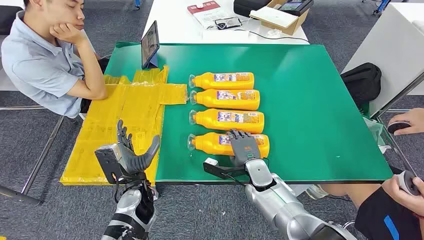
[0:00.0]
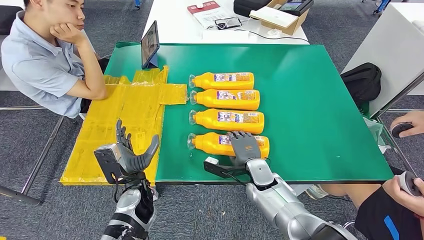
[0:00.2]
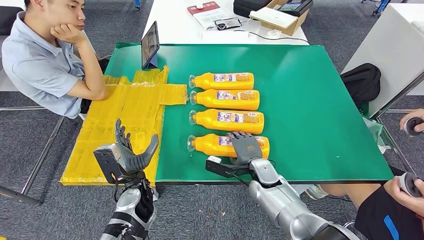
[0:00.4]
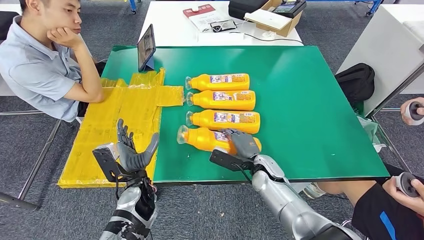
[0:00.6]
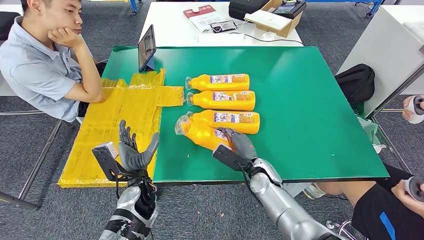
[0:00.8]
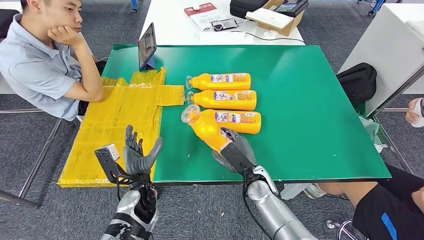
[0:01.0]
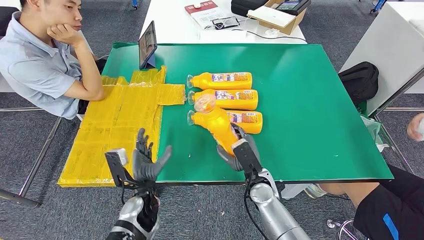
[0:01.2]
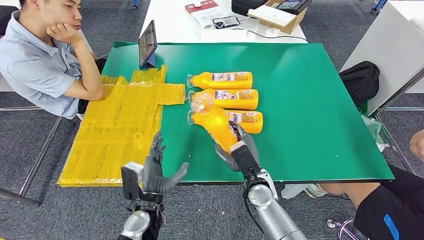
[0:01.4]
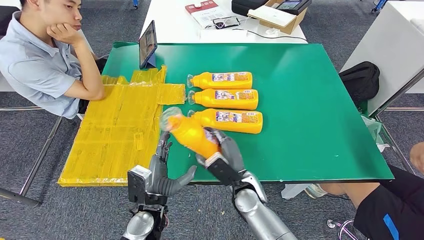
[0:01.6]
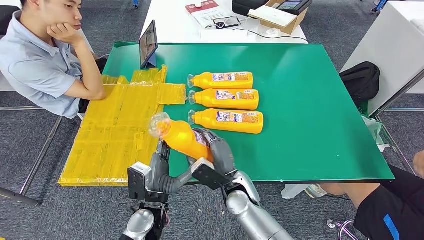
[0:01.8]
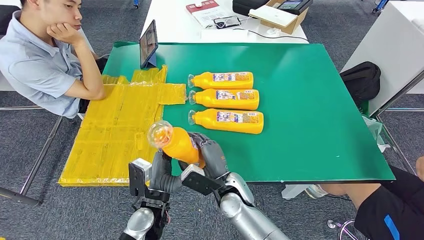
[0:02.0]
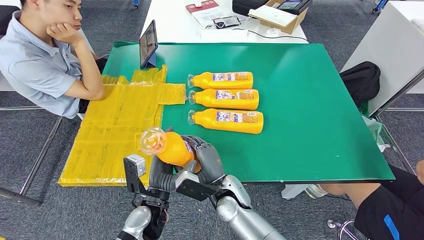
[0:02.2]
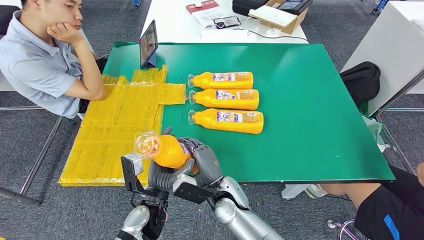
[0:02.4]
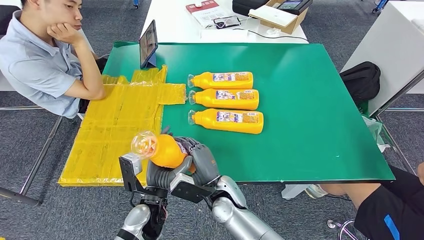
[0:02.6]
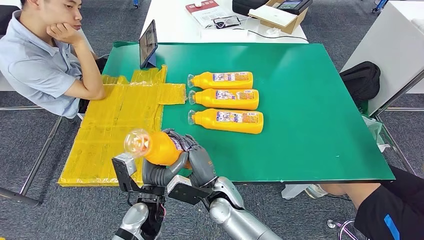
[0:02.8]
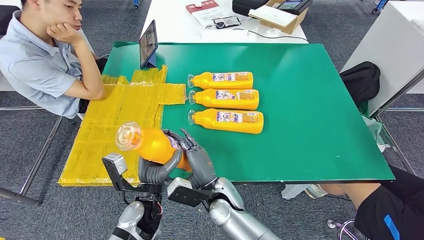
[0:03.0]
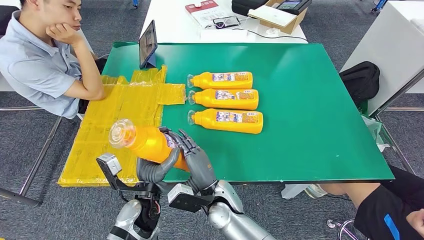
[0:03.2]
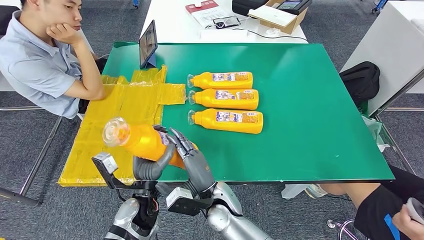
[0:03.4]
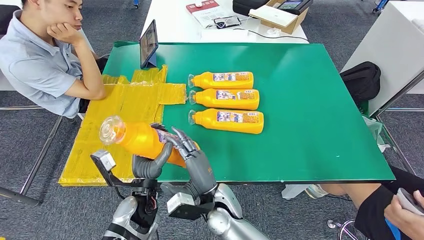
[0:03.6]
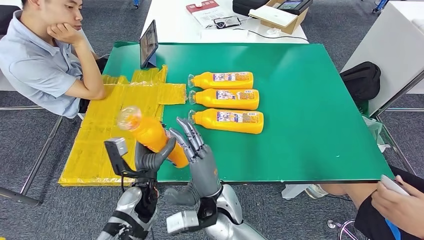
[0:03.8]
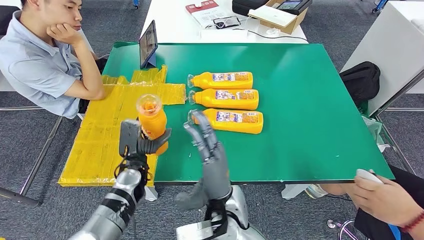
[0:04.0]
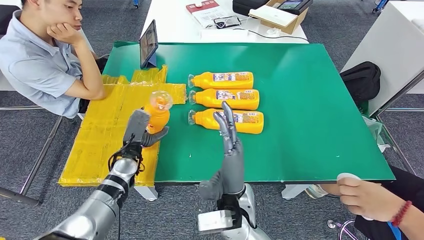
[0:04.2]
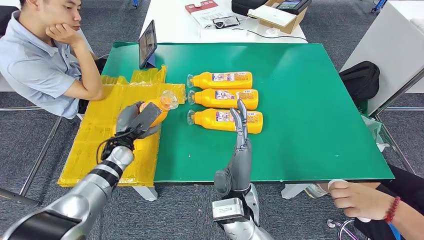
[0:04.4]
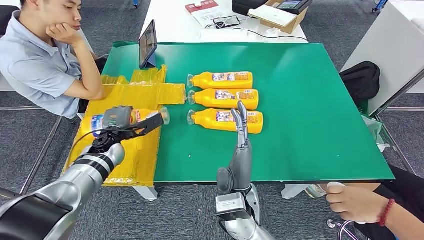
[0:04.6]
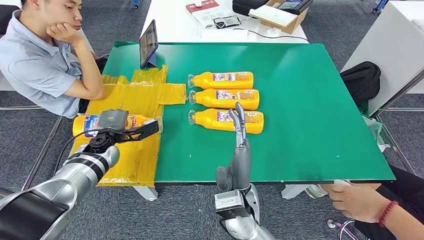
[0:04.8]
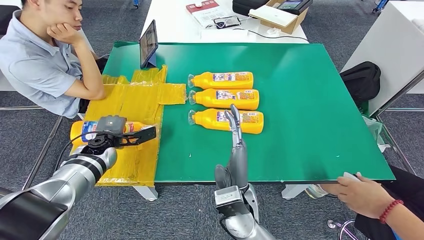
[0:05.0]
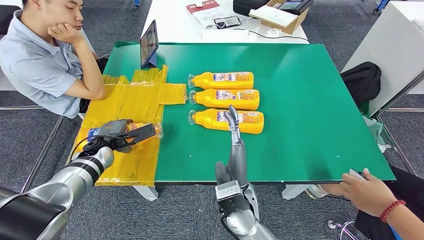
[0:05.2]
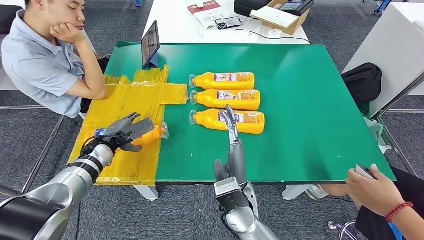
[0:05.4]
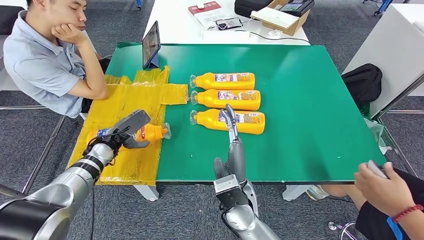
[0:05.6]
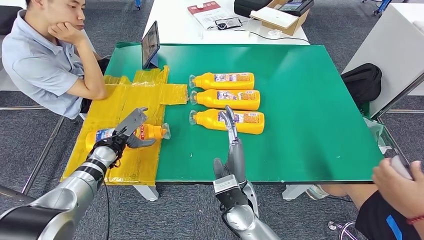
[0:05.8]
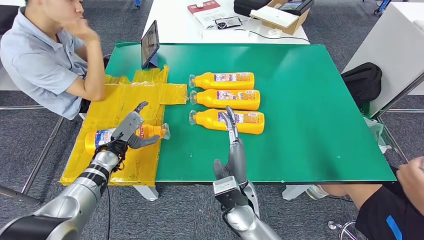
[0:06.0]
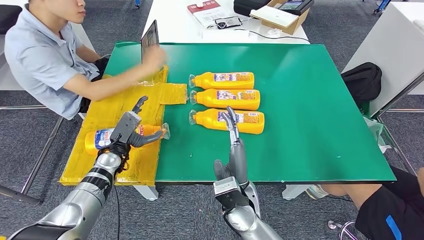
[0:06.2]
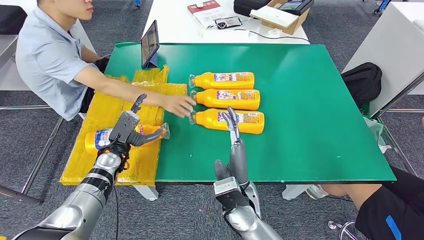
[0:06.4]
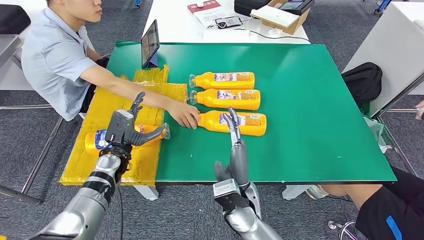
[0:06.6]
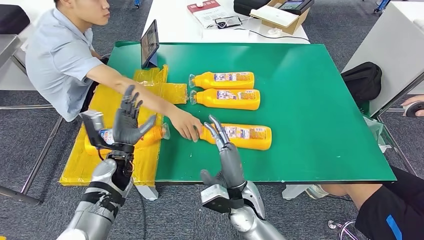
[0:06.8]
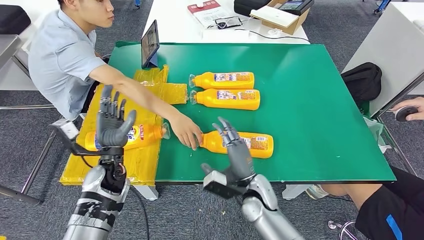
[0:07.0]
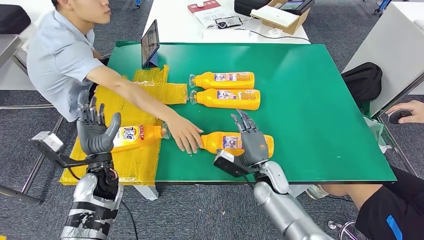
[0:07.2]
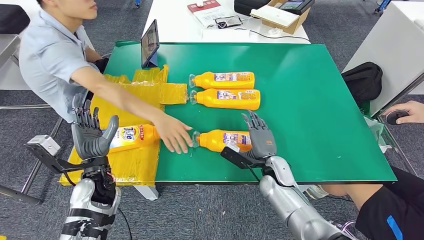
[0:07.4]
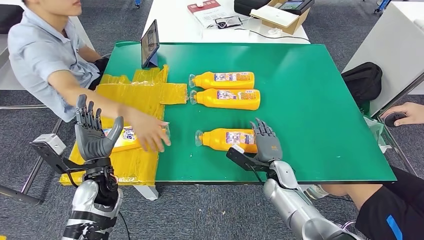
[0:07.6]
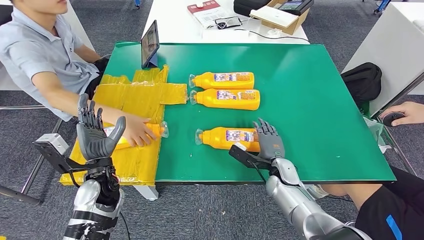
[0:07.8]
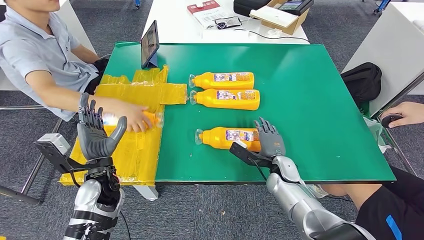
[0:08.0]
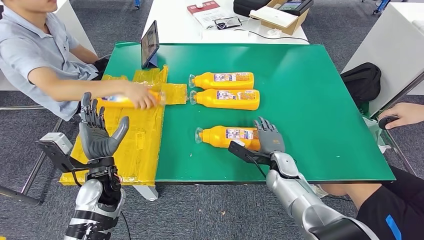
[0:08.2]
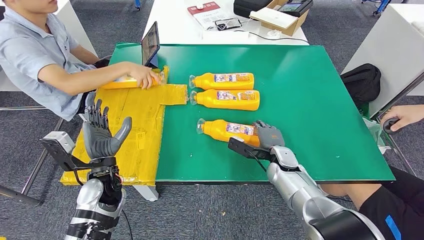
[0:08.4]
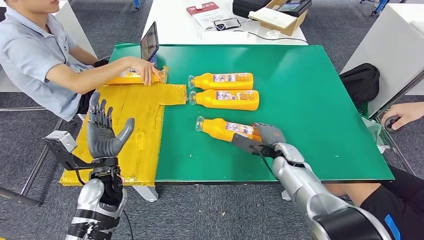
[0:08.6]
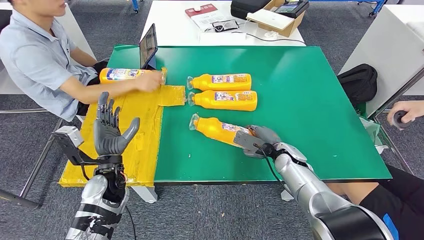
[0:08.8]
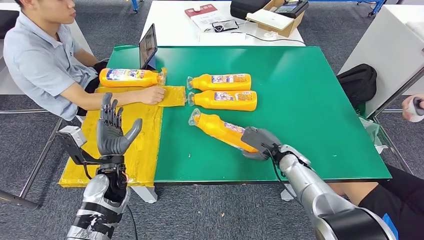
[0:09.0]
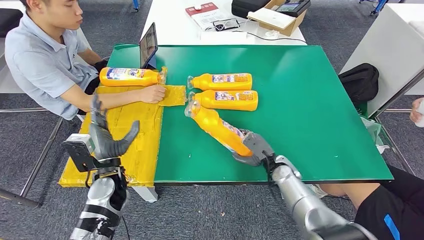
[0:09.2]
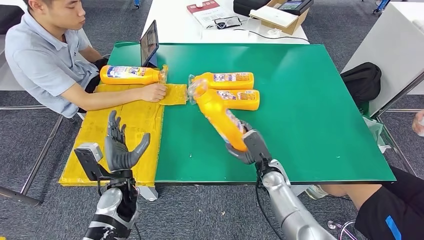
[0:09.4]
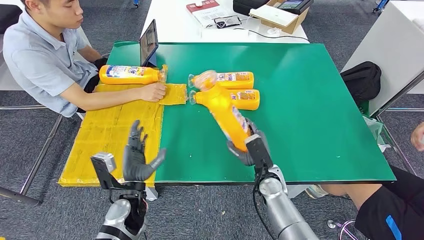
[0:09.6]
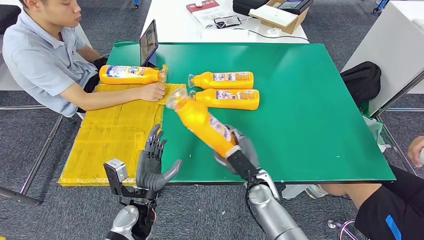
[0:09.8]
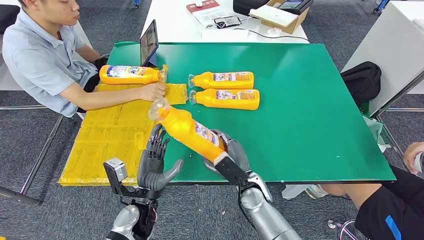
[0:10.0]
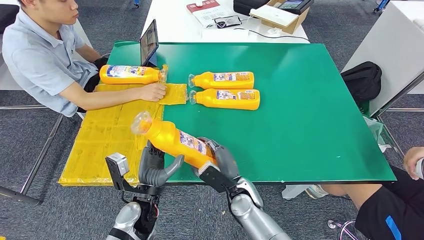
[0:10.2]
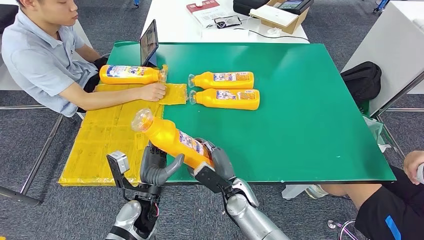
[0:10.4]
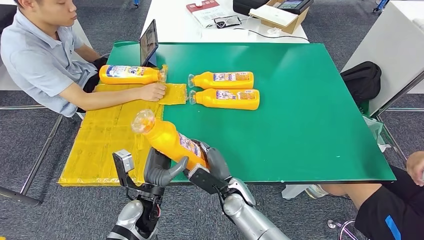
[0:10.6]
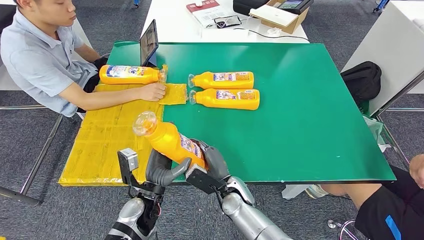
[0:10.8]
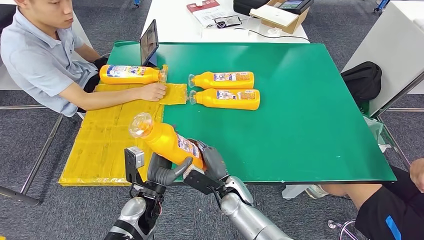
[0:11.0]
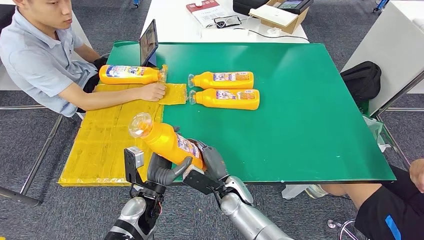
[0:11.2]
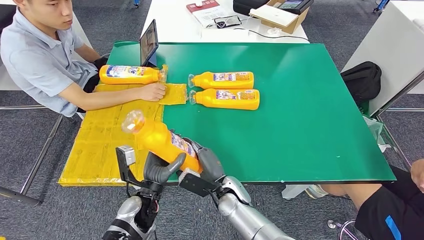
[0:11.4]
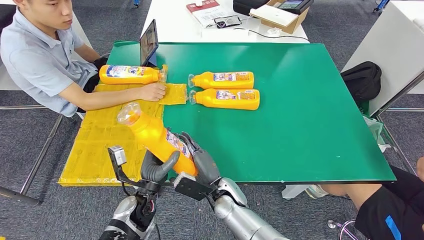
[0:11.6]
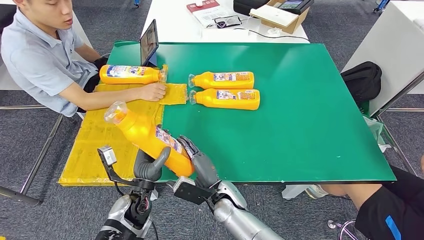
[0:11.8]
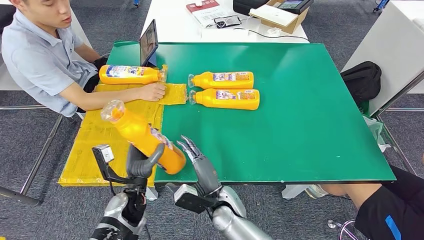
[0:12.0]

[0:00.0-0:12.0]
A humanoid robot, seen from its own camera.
Step, 0:00.0 to 0:02.4: Take the fast-moving consumer goods bottle from the table.
Step, 0:02.8 to 0:06.0: Flip the fast-moving consumer goods bottle to the front side.
Step, 0:08.4 to 0:10.8: Pick up the fast-moving consumer goods bottle from the table.
0:01.6 to 0:03.0: The right hand travels to the left by approximately 10 cm.
0:03.0 to 0:04.4: The left hand shifts about 20 cm forward and to the left; the right hand heads upward, covering some 10 cm.
0:10.4 to 0:12.0: The left hand changes place by roughly 5 cm.

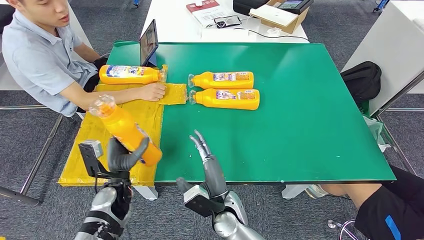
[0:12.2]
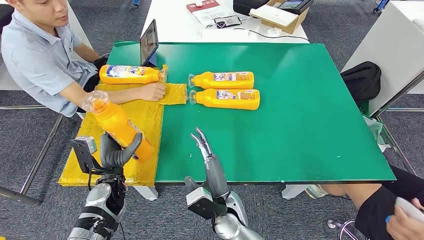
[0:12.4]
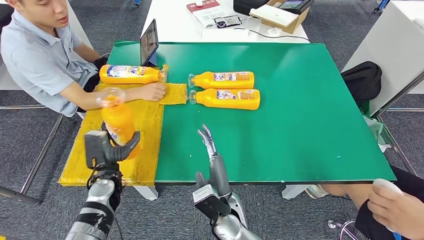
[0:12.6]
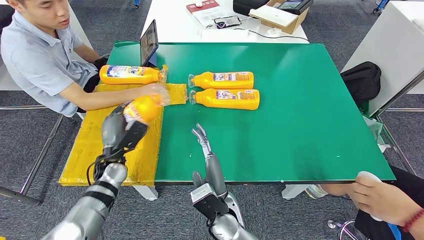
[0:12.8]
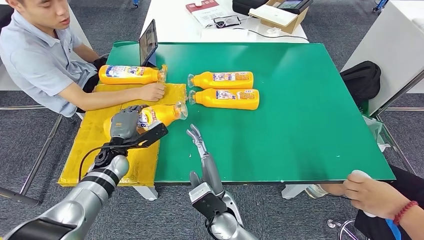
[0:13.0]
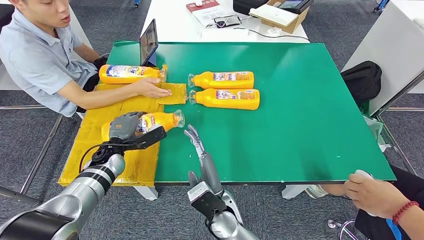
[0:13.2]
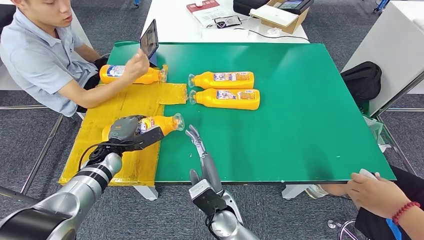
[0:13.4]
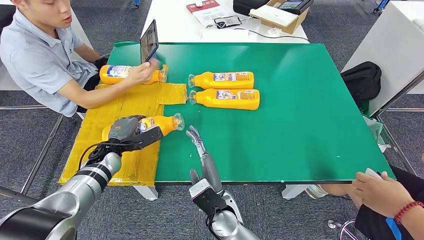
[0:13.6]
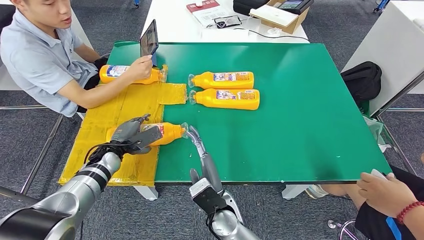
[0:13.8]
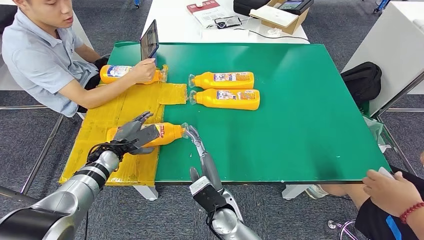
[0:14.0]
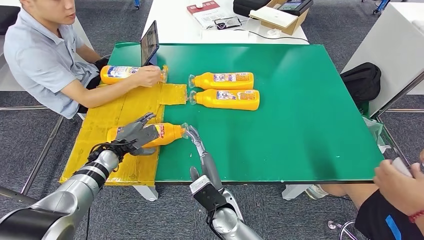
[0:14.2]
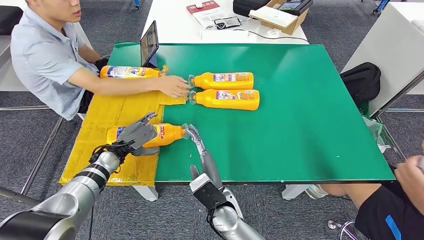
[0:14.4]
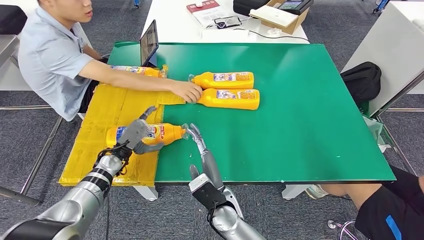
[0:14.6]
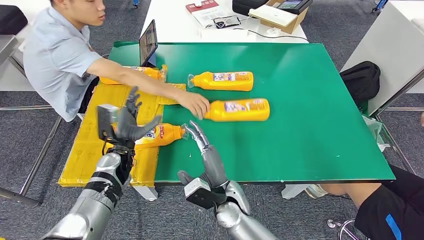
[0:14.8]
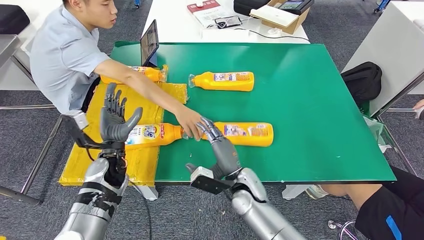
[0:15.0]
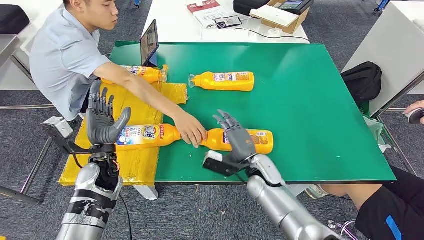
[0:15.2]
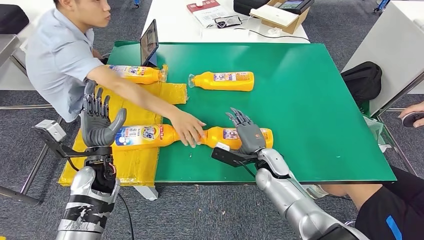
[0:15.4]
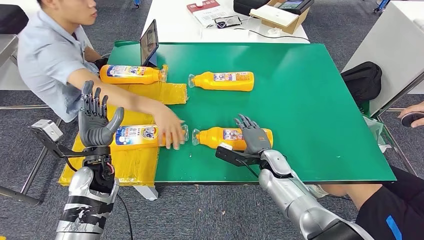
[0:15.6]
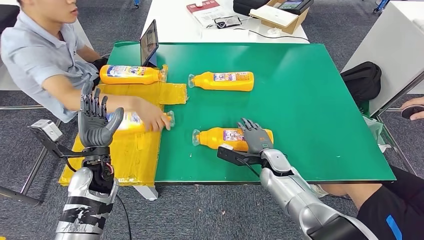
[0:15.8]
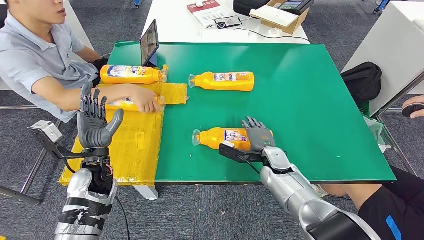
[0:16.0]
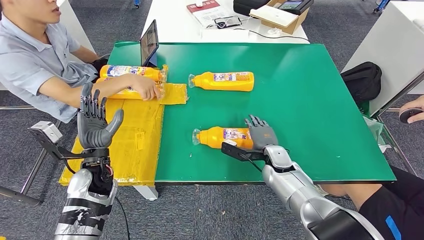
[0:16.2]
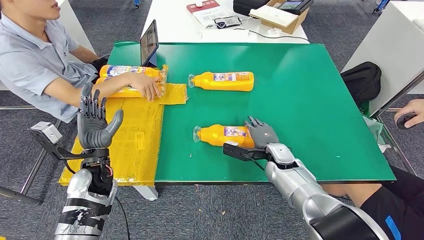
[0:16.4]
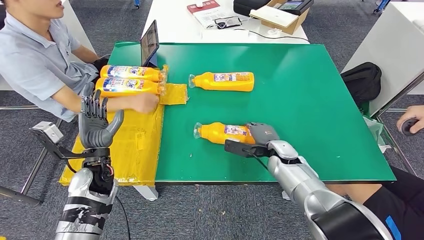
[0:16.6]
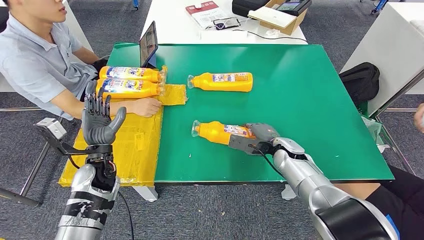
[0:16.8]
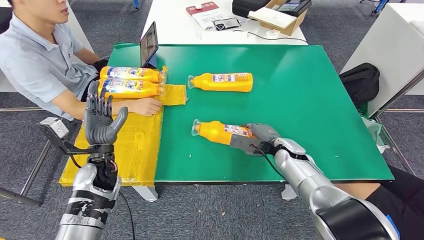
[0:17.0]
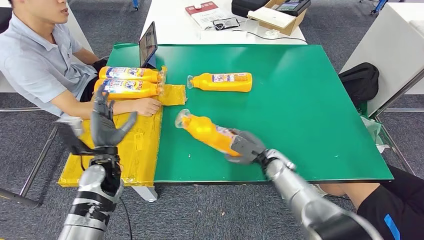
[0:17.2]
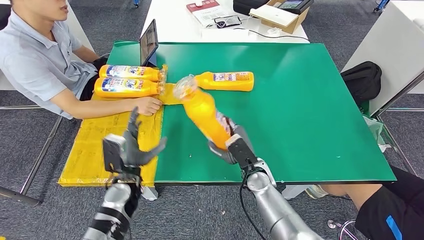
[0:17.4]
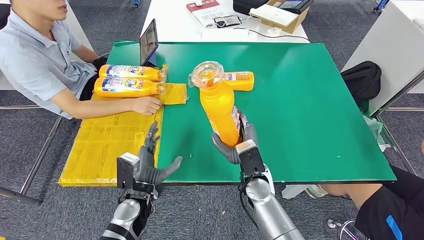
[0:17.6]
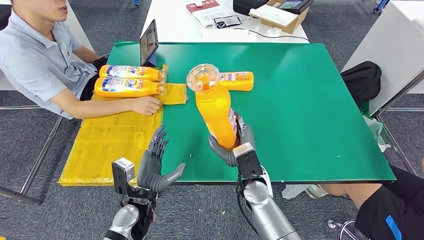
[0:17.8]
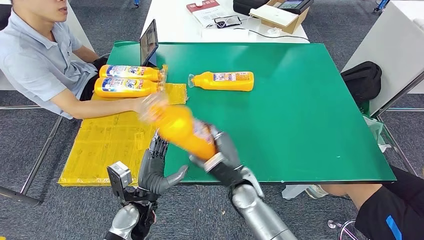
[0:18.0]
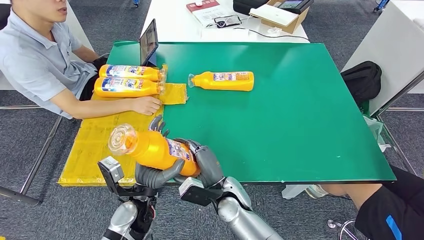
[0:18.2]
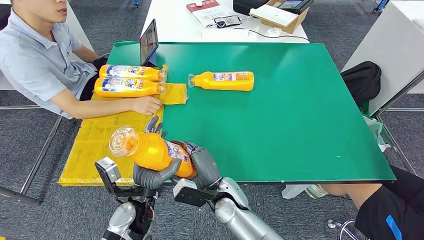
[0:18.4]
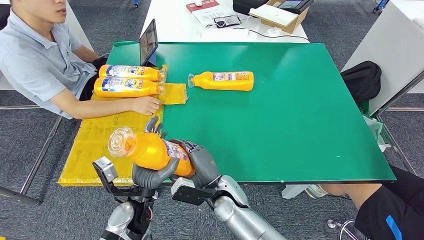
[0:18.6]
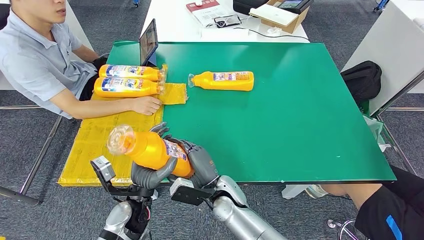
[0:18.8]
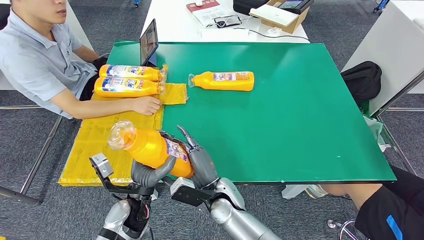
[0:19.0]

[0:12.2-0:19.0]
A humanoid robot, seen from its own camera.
Step, 0:12.2 to 0:14.8: Flip the fast-moving consumer goods bottle to the front side.
Step, 0:16.8 to 0:18.8: Pick up the fast-moving consumer goods bottle from the table.
0:12.2 to 0:13.6: The left hand shifts some 10 cm forward.
0:17.6 to 0:19.0: The right hand goes roughly 10 cm to the left.
